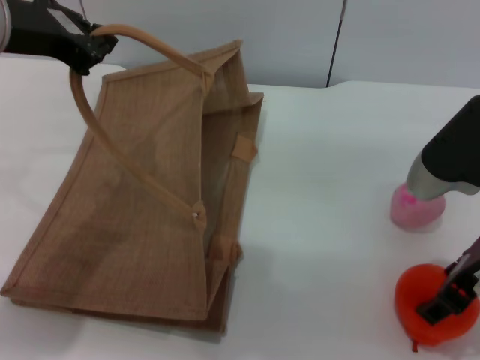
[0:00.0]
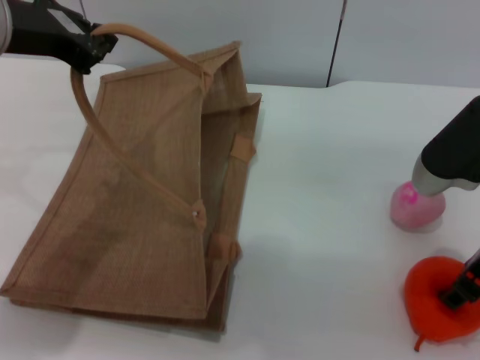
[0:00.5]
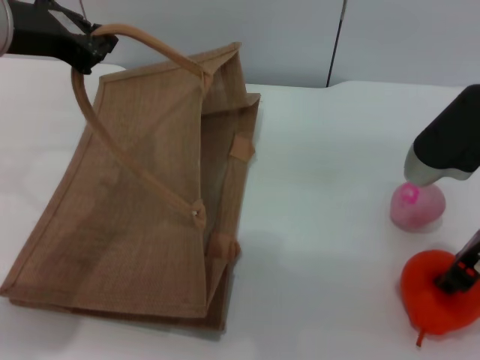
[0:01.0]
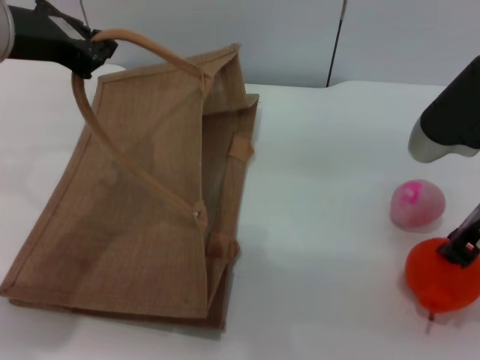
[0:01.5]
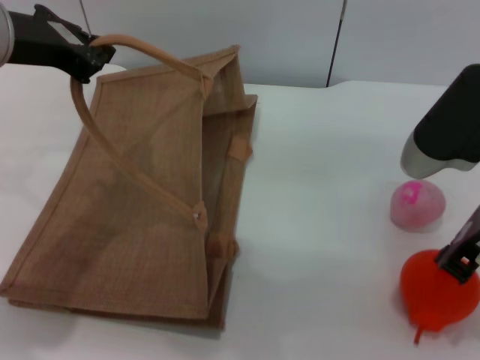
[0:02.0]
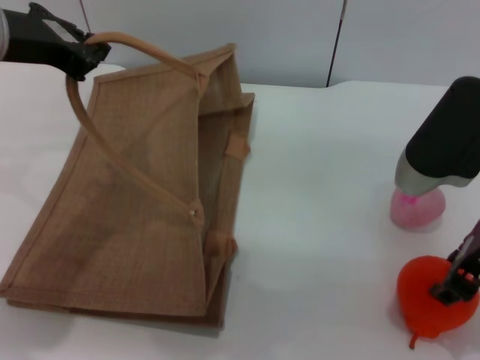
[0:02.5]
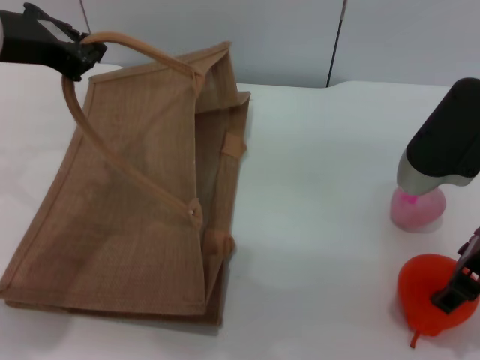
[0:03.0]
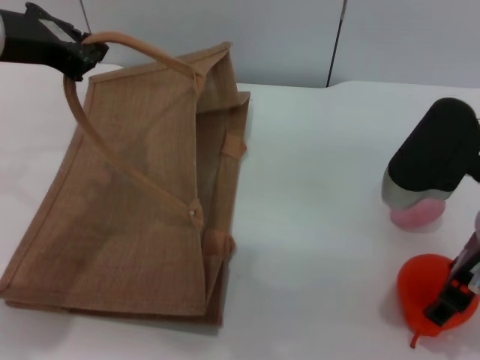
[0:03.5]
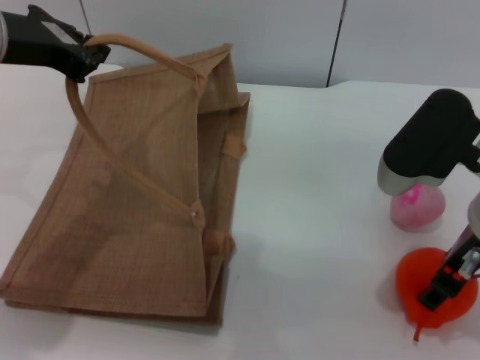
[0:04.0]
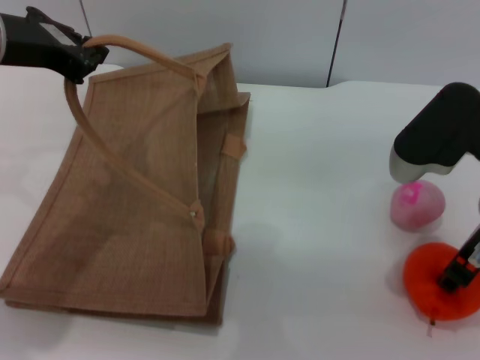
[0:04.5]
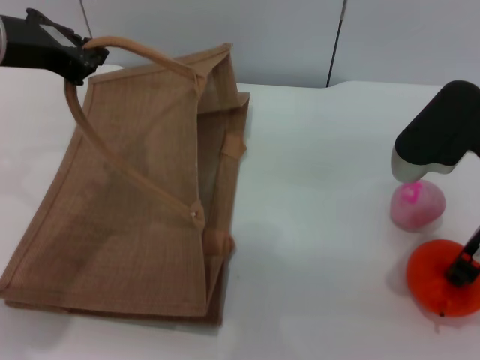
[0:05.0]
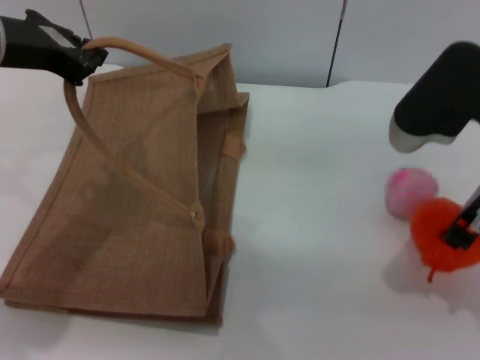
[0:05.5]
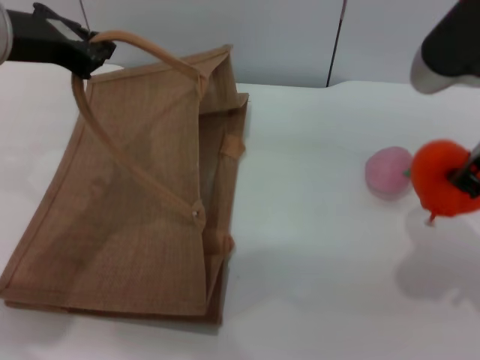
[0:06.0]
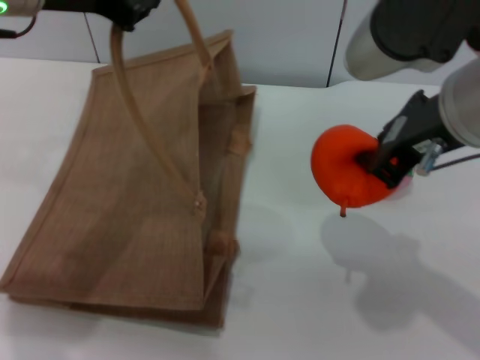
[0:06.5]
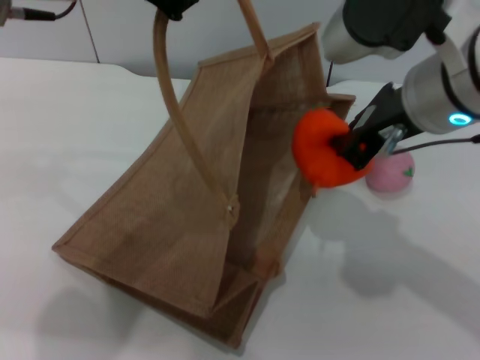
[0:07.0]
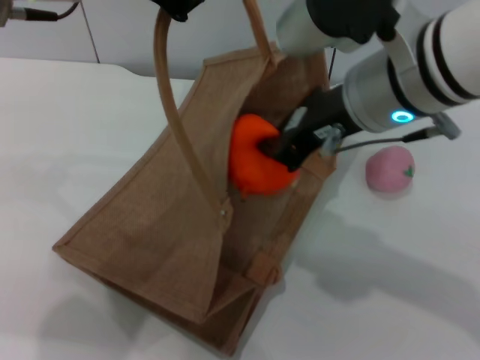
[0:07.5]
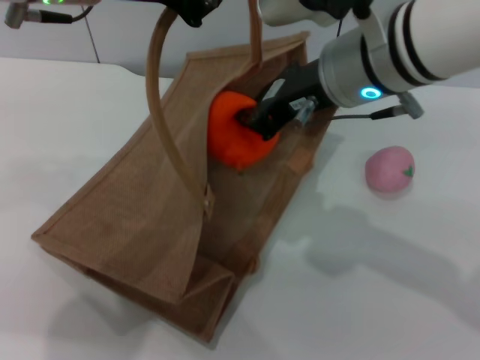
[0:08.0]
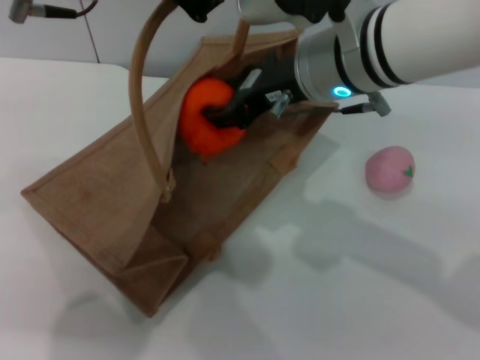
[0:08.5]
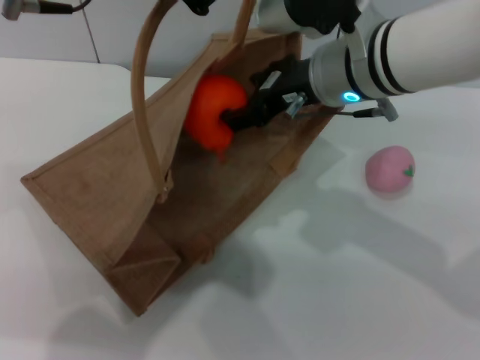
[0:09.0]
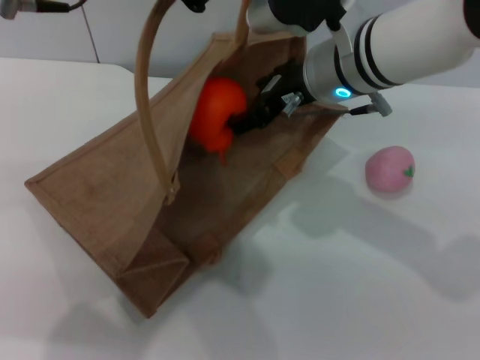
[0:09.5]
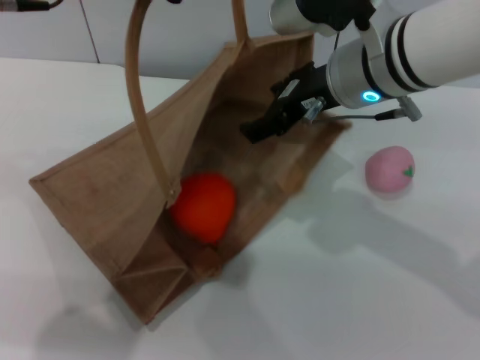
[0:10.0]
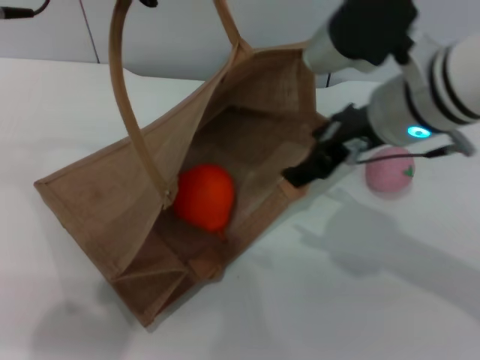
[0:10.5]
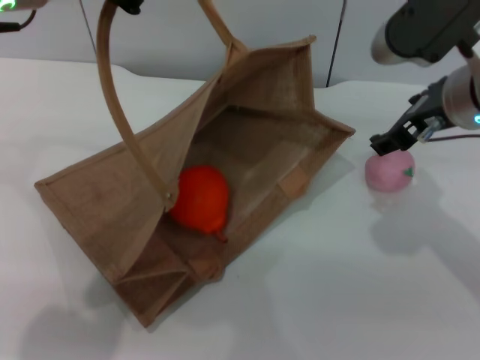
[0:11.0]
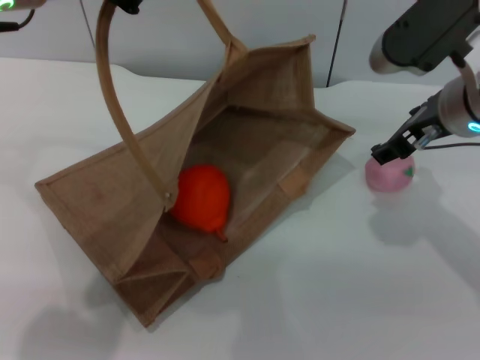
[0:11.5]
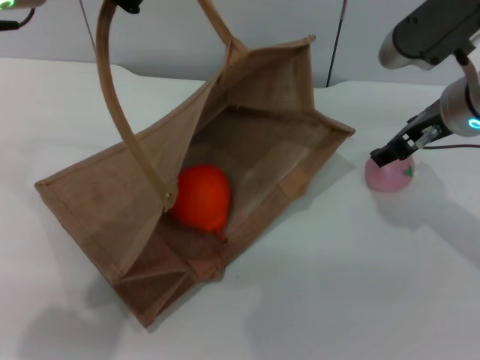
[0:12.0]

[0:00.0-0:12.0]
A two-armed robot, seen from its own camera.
Task of the whole recording: pick up the orange and peach from the table and place it in the brown handbag.
Step, 0:00.0 to 0:06.0: Pick up the orange with the right gripper.
Step, 0:06.5 to 0:10.0: Place the orange into the woven bag with the right gripper.
0:00.0 to 0:02.0: The right gripper closes its fingers.
0:02.0 to 0:04.0: The right gripper opens.
0:04.0 to 0:06.0: The right gripper is displaced upward by roughly 10 cm, and closes up.
0:06.0 to 0:08.0: The left gripper heads to the right and upward, covering about 10 cm. The right gripper heads to the left and forward, covering roughly 10 cm.
0:08.0 to 0:10.0: The right gripper opens up.
0:10.0 to 0:12.0: The right gripper travels to the right by approximately 10 cm.

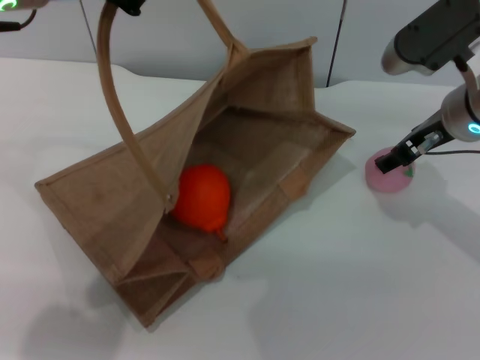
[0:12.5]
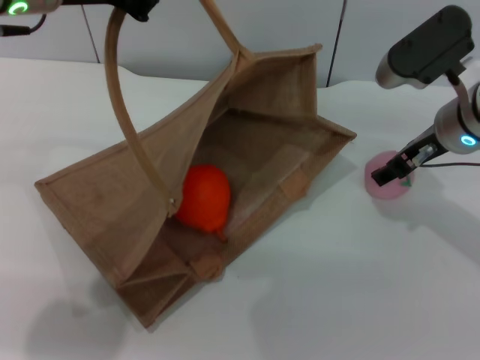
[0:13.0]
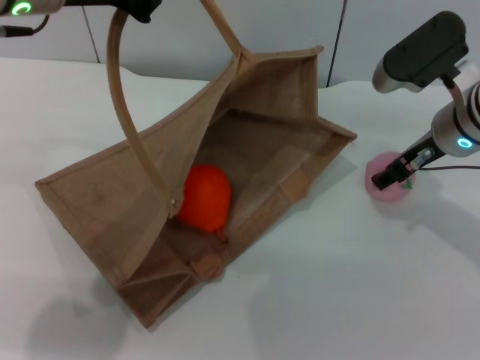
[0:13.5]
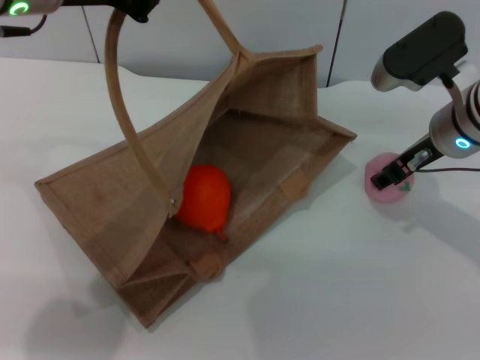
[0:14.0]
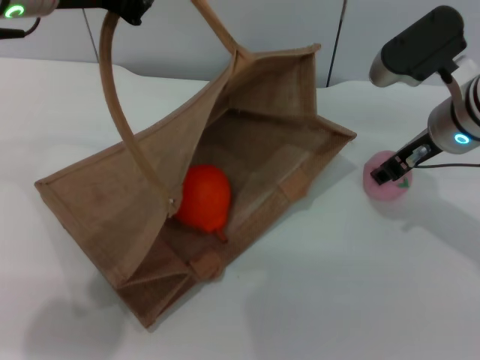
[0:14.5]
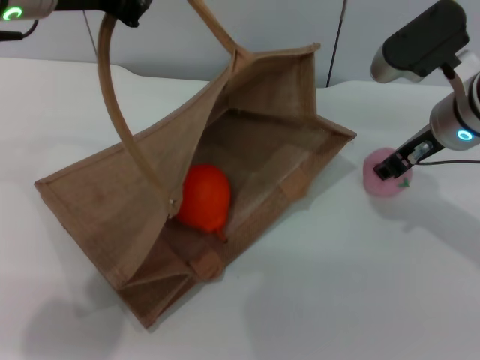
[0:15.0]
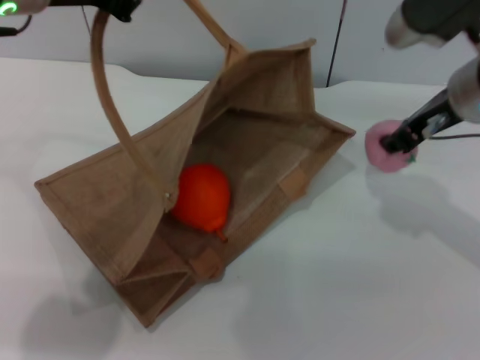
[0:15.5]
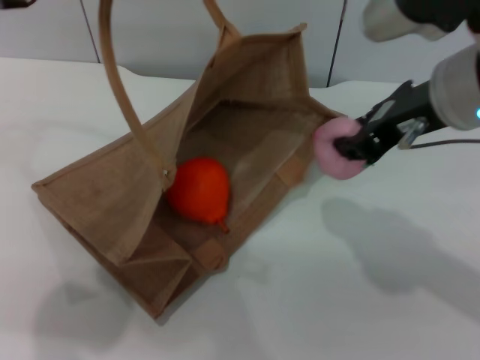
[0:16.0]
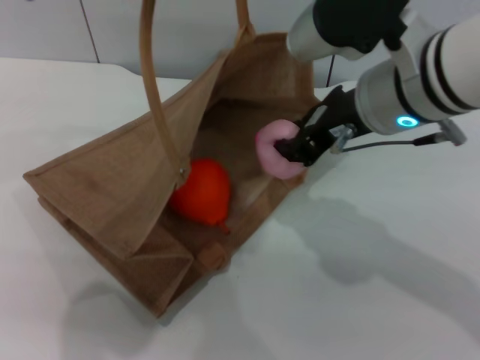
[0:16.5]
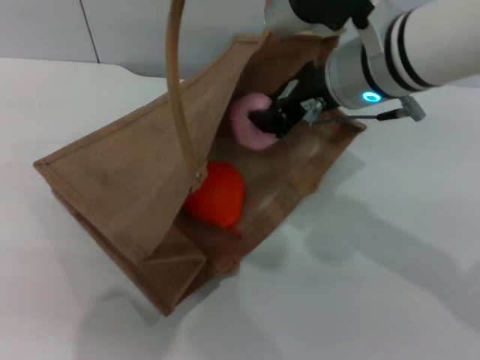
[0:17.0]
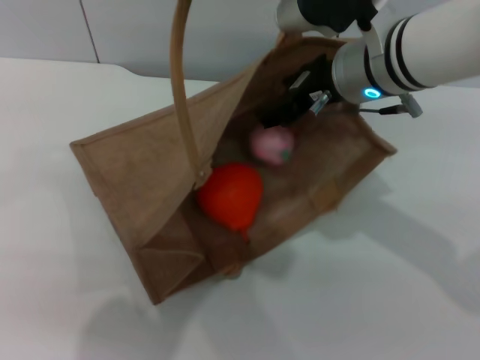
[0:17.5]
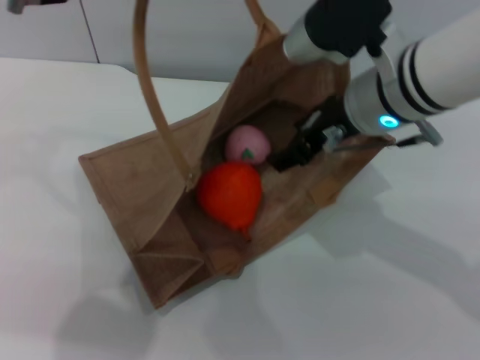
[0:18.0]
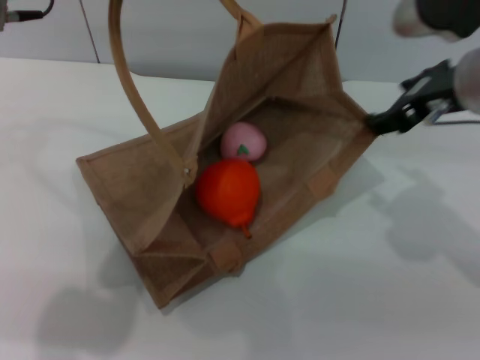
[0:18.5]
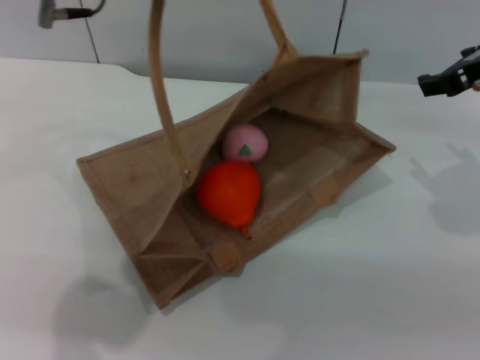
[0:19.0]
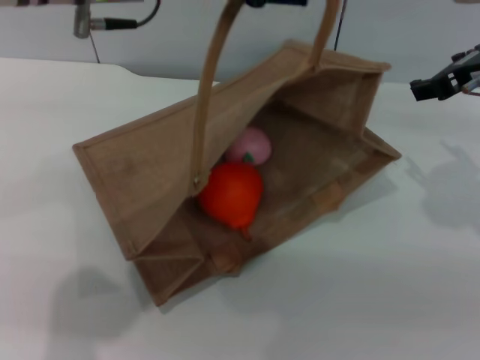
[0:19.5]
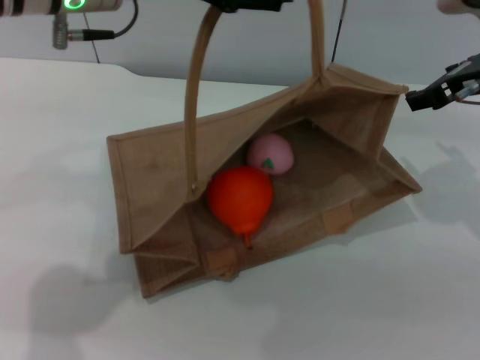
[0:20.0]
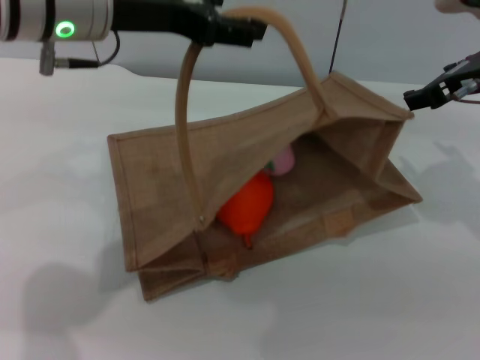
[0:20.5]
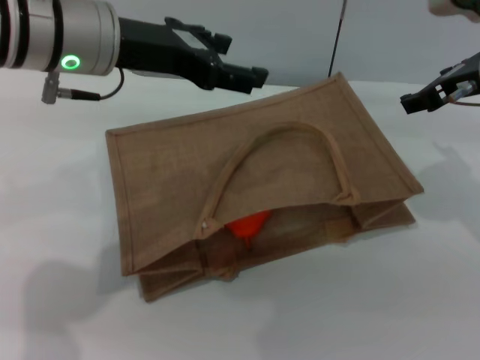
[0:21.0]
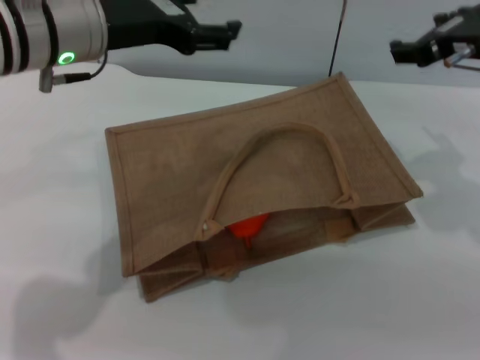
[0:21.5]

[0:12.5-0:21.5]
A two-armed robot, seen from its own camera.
Task of the whole recording: pick up the orange and peach from the table and place it in the brown handbag.
Step, 0:12.5 to 0:15.5: Pick up the peach with the right gripper.
Step, 0:16.0 to 0:18.0: Place the peach into the woven bag with the right gripper.
Step, 0:18.5 to 0:20.5: Lower the woven bag with the left gripper to close it.
0:12.5 to 0:14.5: The grippers make only small movements.
0:14.5 to 0:17.0: The right gripper moves to the left and upward, roughly 10 cm, and closes. Meanwhile the left gripper is displaced to the right by approximately 5 cm.
0:17.0 to 0:19.5: The left gripper opens its fingers. The right gripper is displaced to the right by about 15 cm, and opens its fingers.
0:19.5 to 0:21.5: The left gripper heads downward, covering roughly 5 cm.
